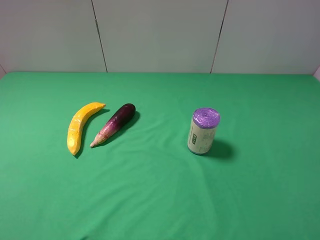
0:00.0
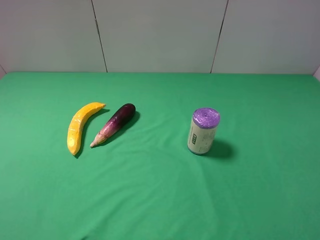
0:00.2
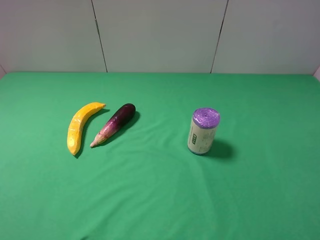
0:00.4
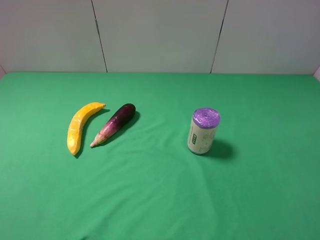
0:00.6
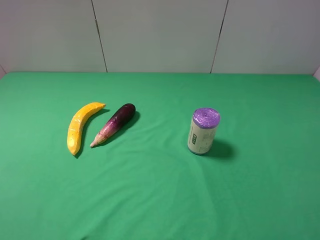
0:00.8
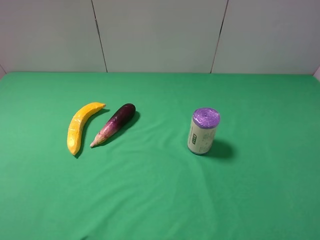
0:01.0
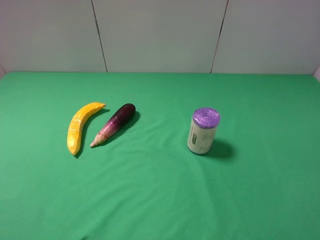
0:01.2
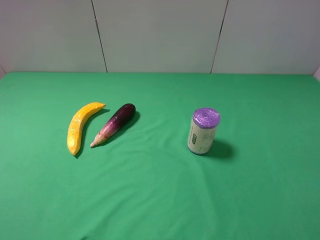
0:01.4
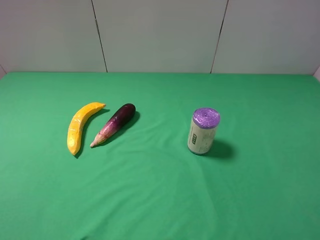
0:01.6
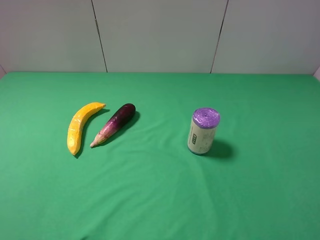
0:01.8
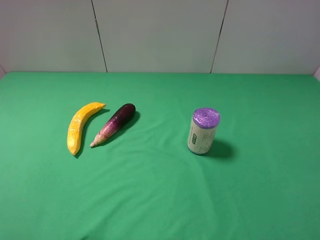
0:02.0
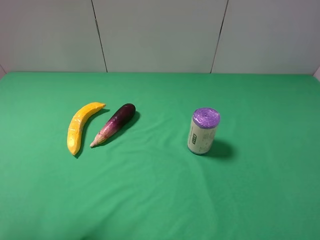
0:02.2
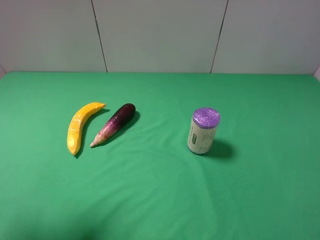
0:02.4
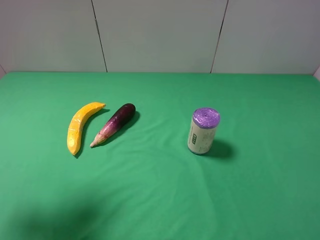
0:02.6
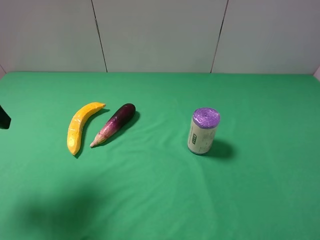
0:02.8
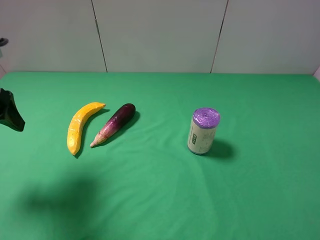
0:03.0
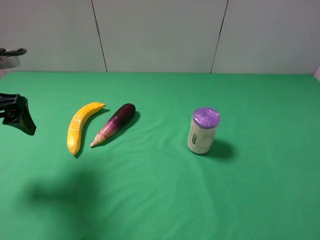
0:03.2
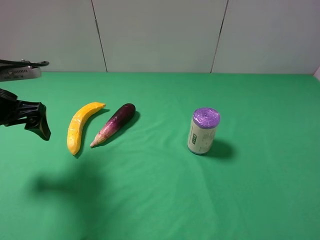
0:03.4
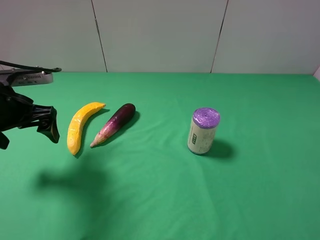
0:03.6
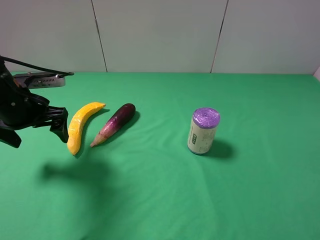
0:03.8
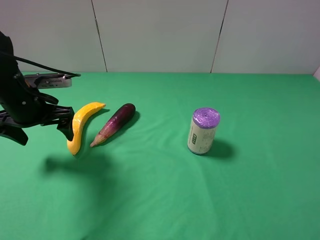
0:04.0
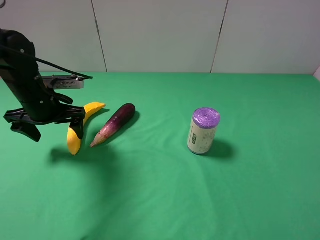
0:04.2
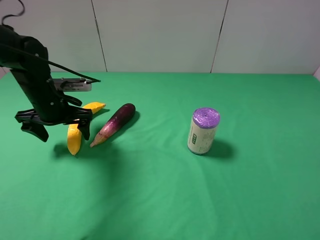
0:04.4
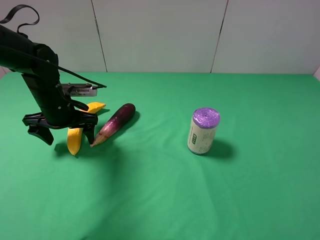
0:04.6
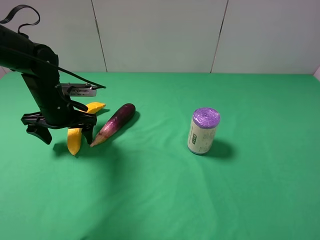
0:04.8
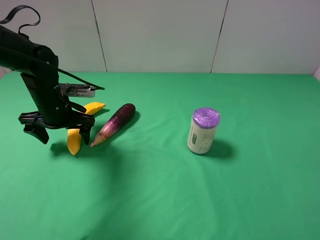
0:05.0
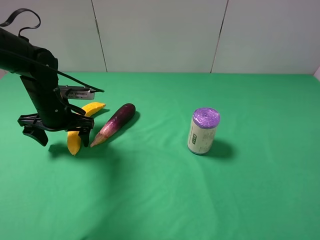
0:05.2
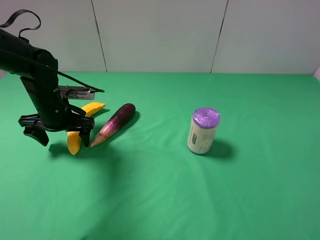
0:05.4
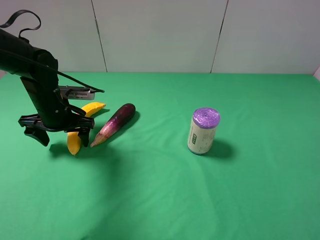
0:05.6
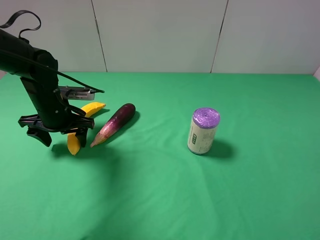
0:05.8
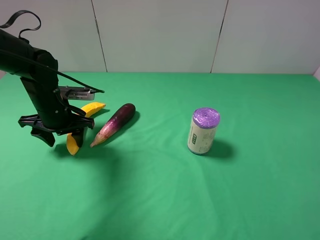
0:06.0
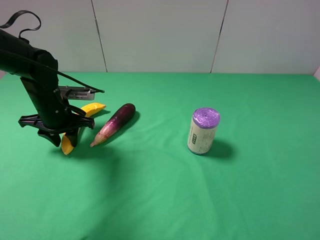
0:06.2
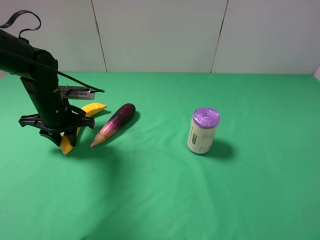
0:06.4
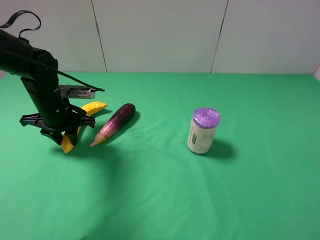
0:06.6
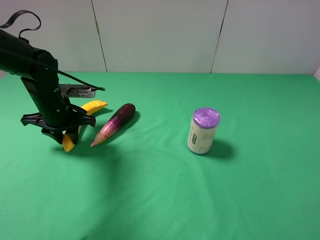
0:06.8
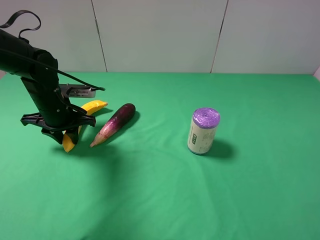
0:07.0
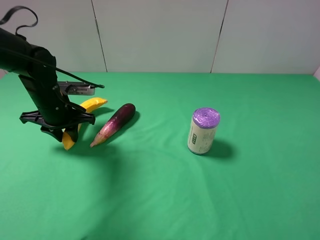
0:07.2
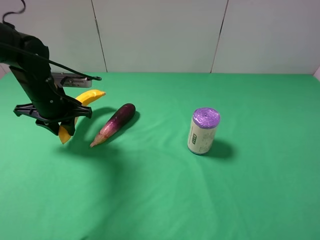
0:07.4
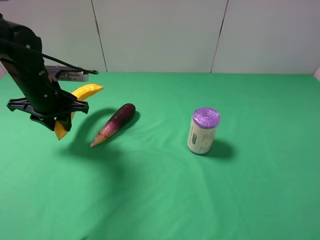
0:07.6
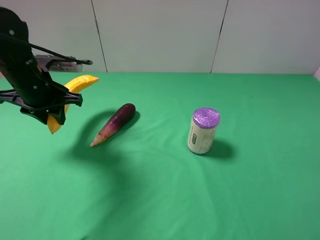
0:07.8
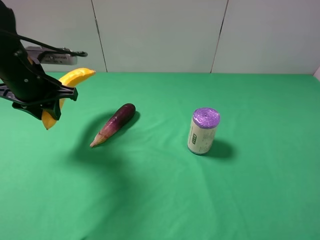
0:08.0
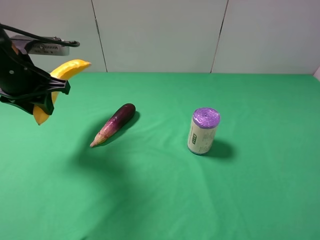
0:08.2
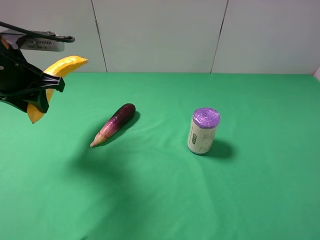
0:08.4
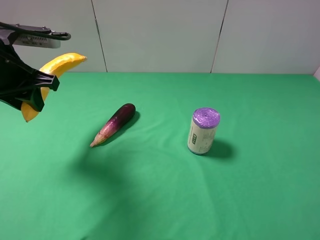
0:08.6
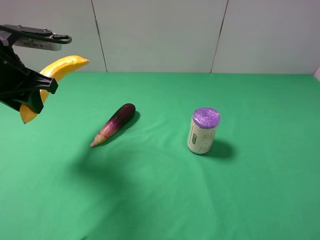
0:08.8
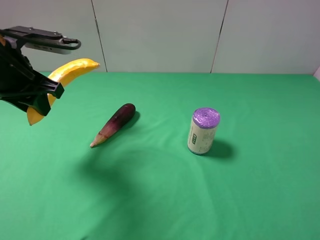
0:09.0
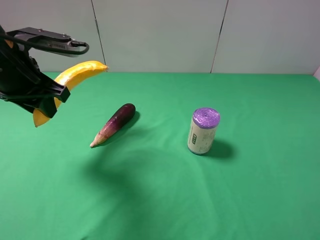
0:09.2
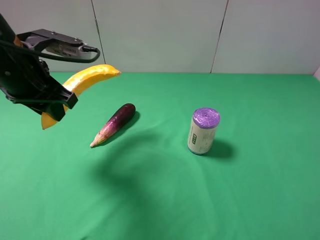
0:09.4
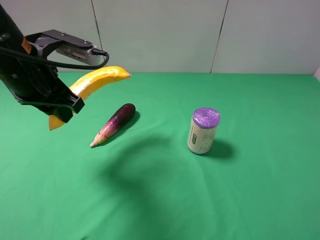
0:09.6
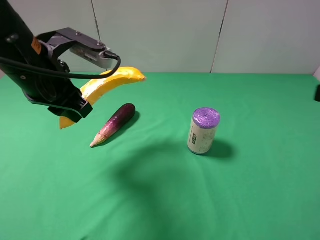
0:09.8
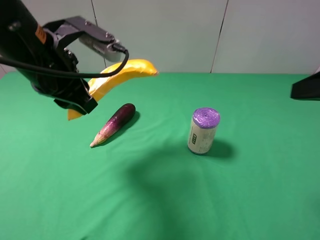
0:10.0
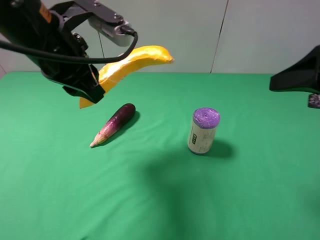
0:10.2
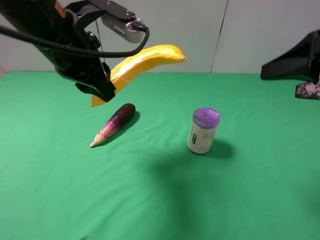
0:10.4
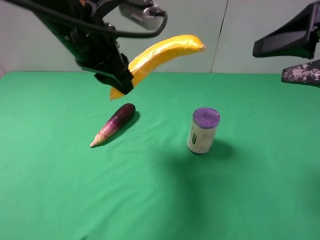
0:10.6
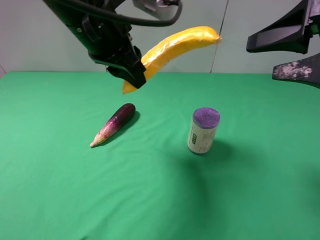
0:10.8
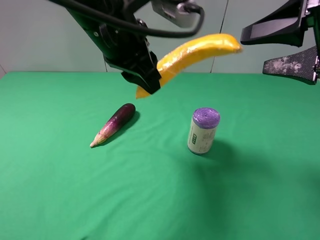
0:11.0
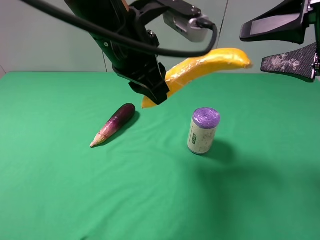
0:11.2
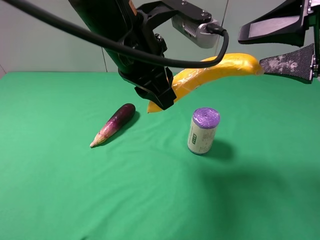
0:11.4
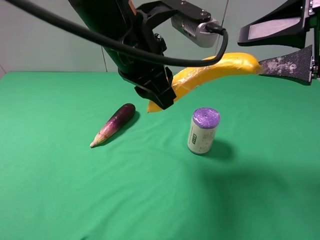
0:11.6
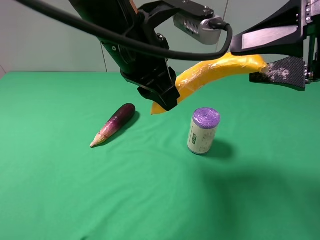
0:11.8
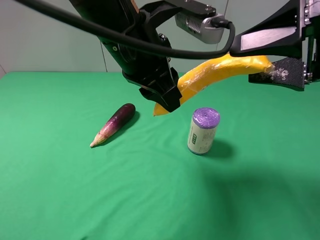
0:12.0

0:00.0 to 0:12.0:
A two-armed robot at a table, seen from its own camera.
Task of the whole recording: use the left gripper to pick up the item and transfer it from the left gripper to the right gripper.
Step, 0:00.0 to 0:07.0: Use the left gripper to grab the banana on the left side of the table.
0:01.6 to 0:03.0: The left gripper moves forward, about 20 cm.
0:03.0 to 0:04.4: The left gripper goes some 20 cm downward, forward and to the right.
0:04.4 to 0:06.0: The left gripper closes.
0:06.0 to 0:07.6: The left gripper moves upward, roughly 5 cm, and closes up.
0:07.6 to 0:09.0: The left gripper moves upward and backward, approximately 10 cm.
0:09.0 to 0:10.4: The left gripper is displaced to the right by approximately 10 cm; the right gripper goes roughly 15 cm forward.
0:10.4 to 0:12.0: The left gripper goes approximately 10 cm to the right.

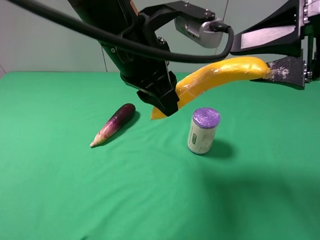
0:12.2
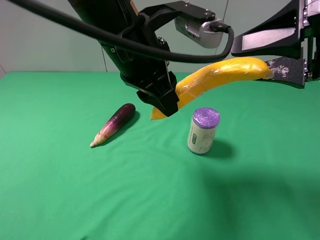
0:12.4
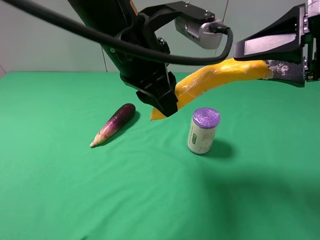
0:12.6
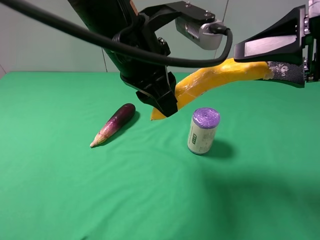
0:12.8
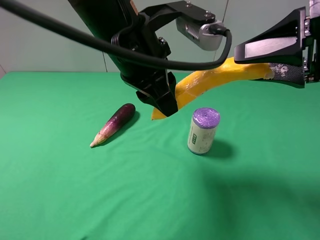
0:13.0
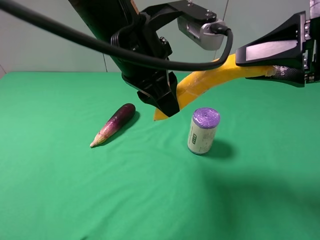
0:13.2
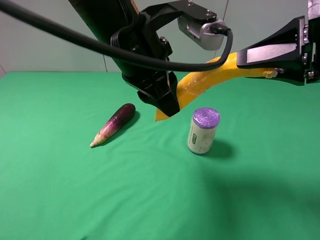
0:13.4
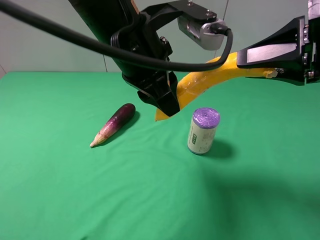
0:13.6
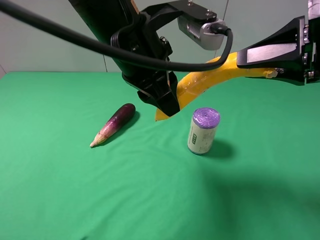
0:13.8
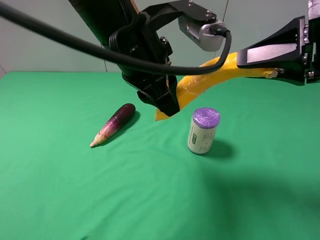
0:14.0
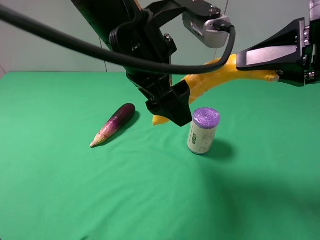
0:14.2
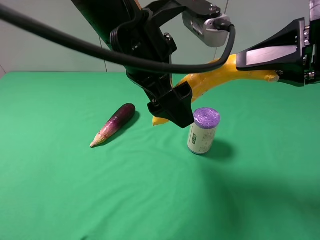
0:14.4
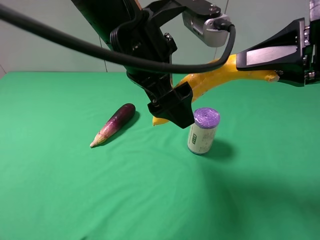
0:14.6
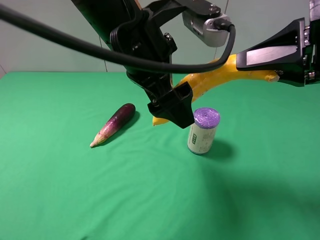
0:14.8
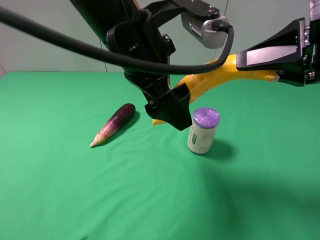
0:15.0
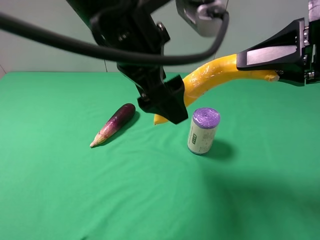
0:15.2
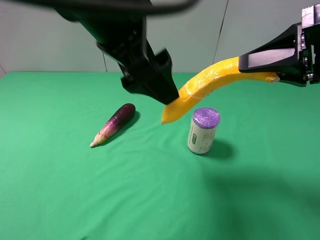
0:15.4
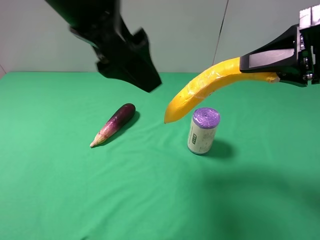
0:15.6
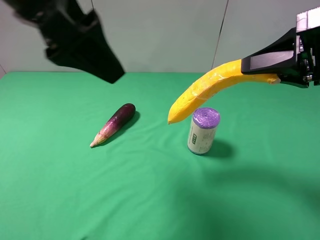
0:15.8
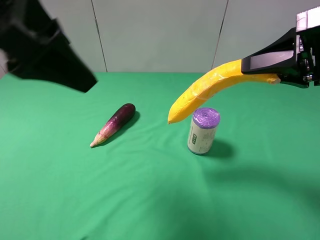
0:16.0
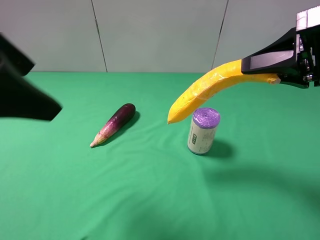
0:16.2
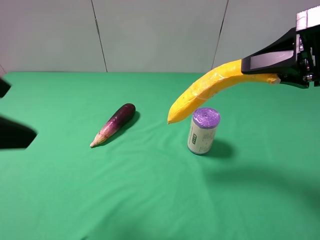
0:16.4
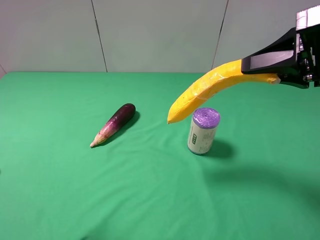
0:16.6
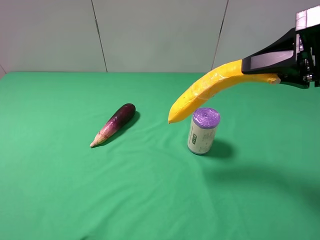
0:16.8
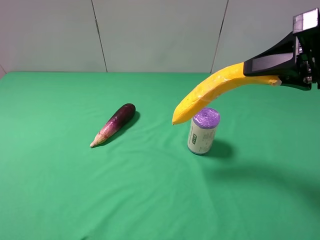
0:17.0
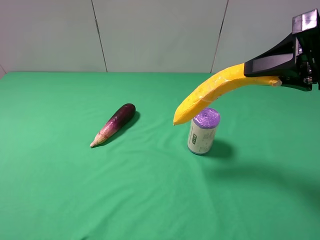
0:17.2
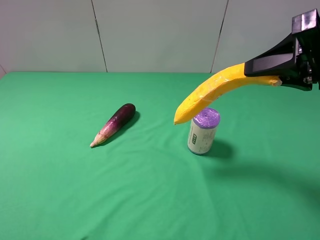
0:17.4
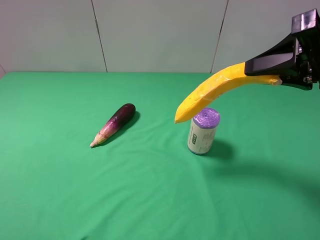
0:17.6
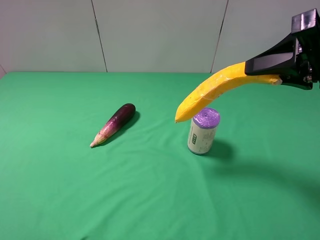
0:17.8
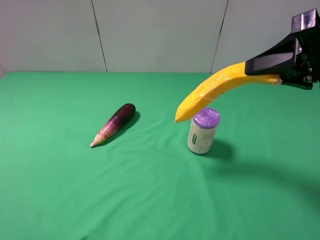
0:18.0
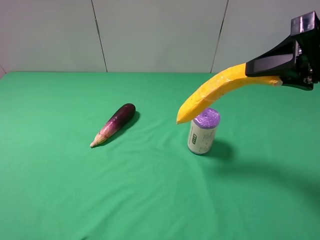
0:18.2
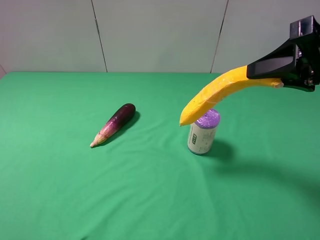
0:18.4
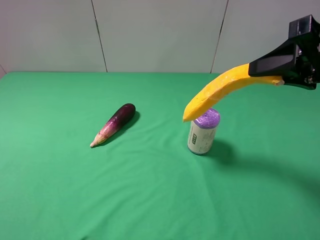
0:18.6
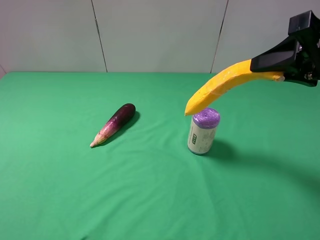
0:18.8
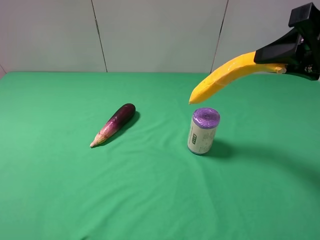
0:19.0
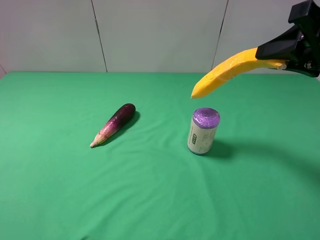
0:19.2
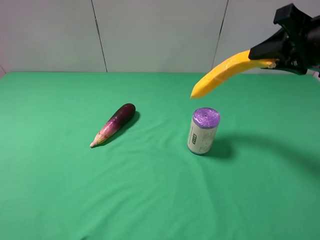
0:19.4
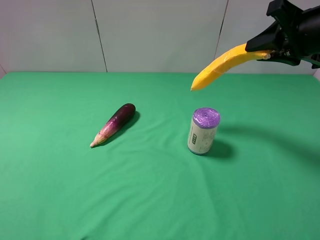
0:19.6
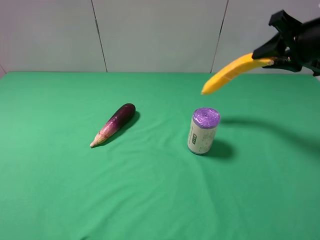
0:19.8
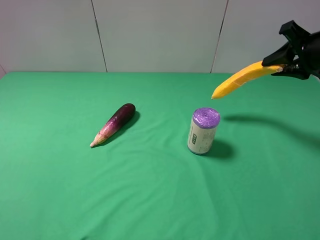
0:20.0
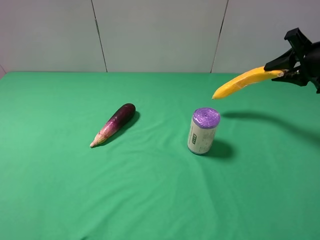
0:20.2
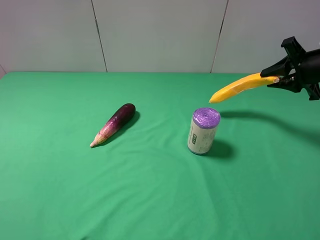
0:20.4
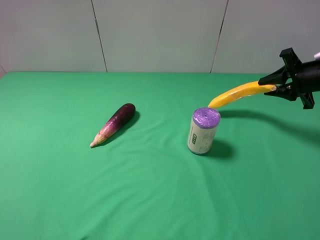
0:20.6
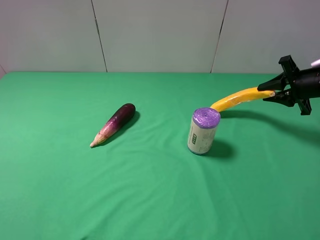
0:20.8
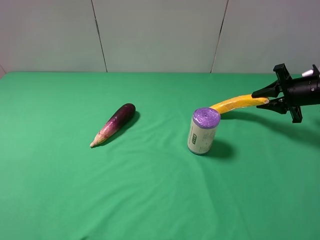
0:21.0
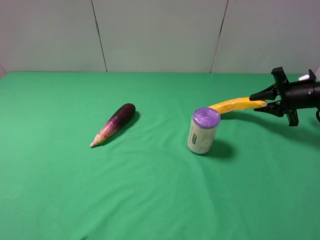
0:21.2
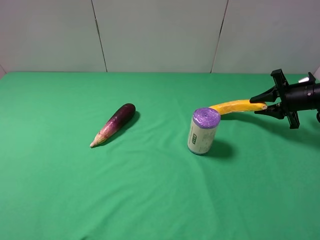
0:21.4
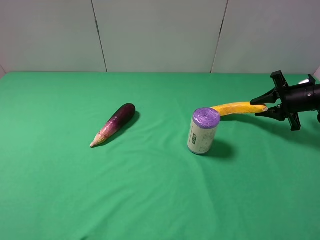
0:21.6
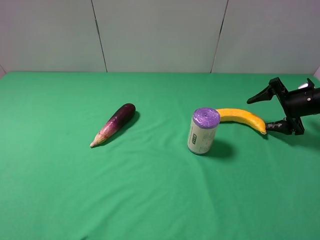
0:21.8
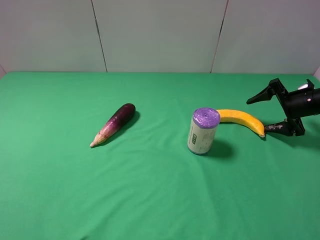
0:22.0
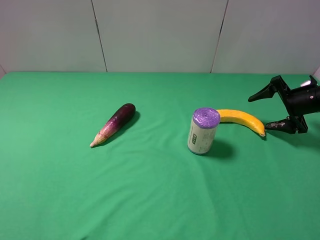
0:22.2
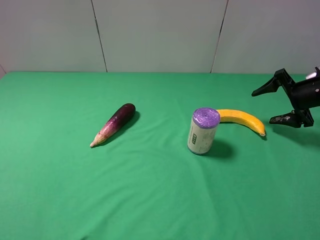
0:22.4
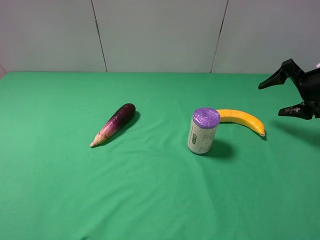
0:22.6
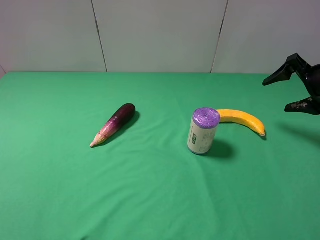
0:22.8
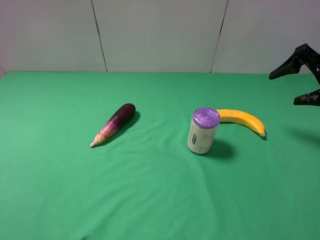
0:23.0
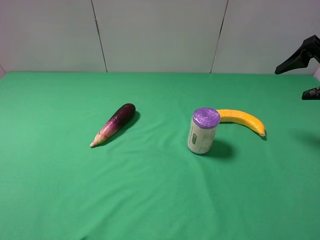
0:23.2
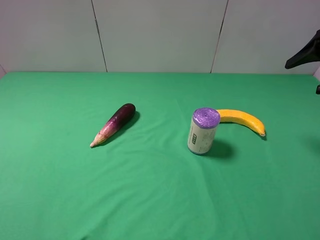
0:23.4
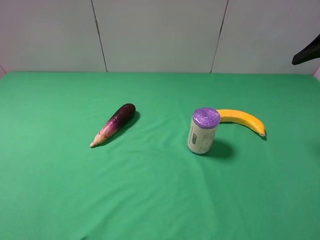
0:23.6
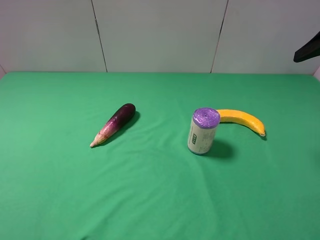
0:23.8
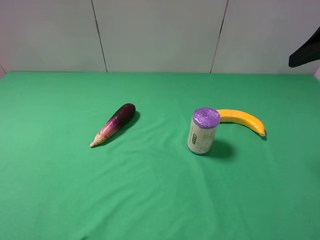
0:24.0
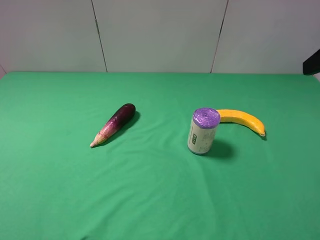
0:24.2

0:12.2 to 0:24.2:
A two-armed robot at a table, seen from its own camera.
Task of the whole recording: use the left gripper to pick up the item and transfer it from the left gripper to the right gripper.
Step, 0:12.2 to 0:14.6: Pass the banana to the right gripper.
Step, 0:14.8 to 0:23.4: The right gripper places banana on the right side of the table.
0:12.2 to 0:13.8: The right gripper closes.
0:13.8 to 0:15.2: The left gripper opens.
0:15.2 to 0:16.6: The left gripper moves to the left and backward, about 25 cm.
0:16.6 to 0:18.2: The left gripper heads to the left, backward and downward, covering some 10 cm.
0:18.2 to 0:19.8: The right gripper travels forward and to the right by approximately 10 cm.
0:19.8 to 0:21.2: The right gripper travels downward and to the right by approximately 15 cm.
0:21.2 to 0:22.6: The right gripper goes approximately 5 cm upward, and opens up.
0:22.6 to 0:24.2: The right gripper moves upward, backward and to the left, approximately 25 cm.
